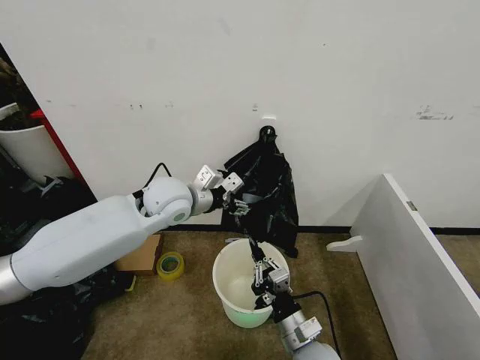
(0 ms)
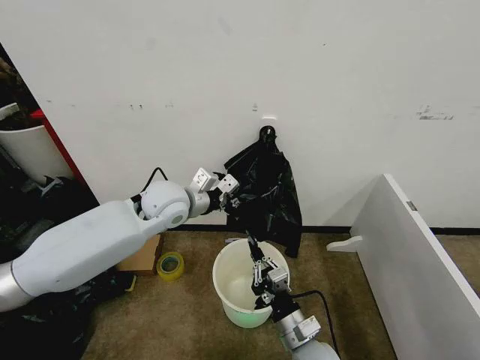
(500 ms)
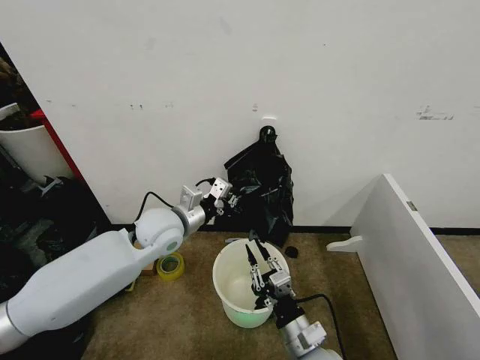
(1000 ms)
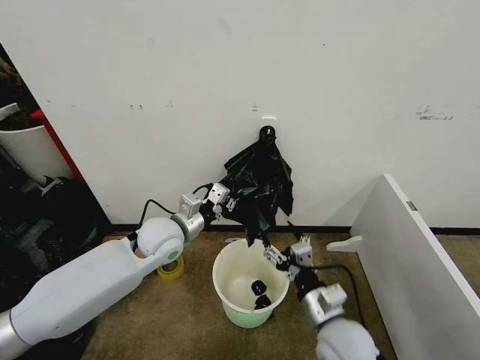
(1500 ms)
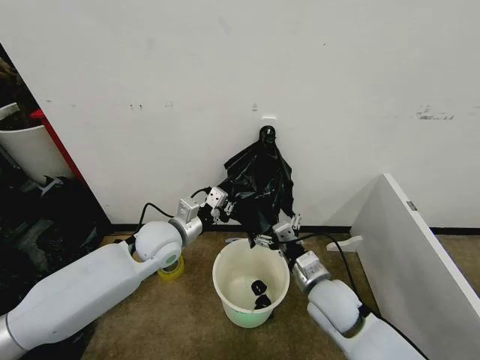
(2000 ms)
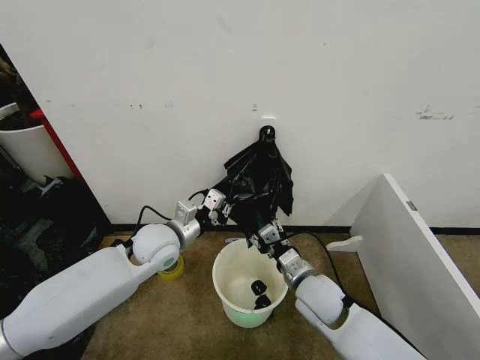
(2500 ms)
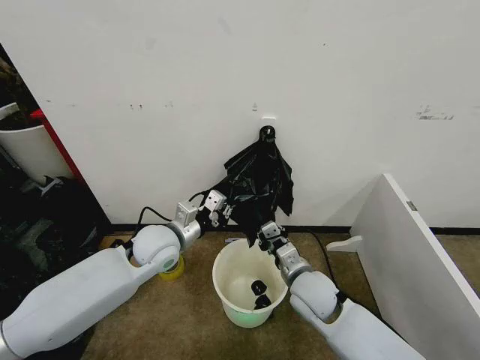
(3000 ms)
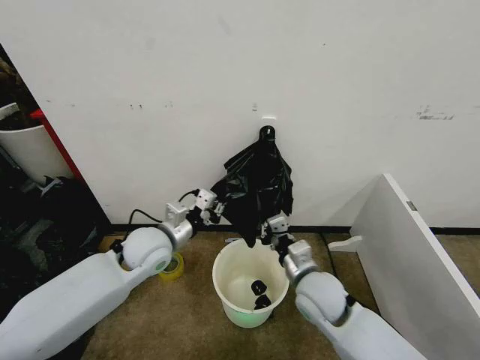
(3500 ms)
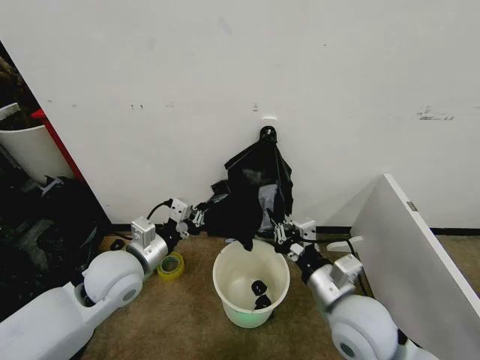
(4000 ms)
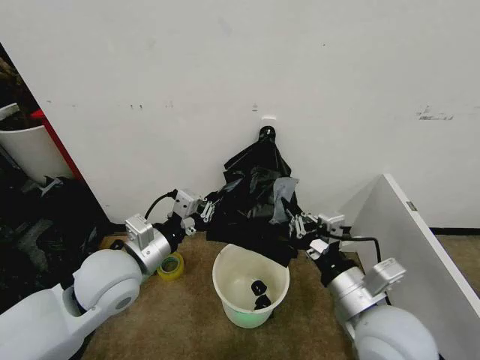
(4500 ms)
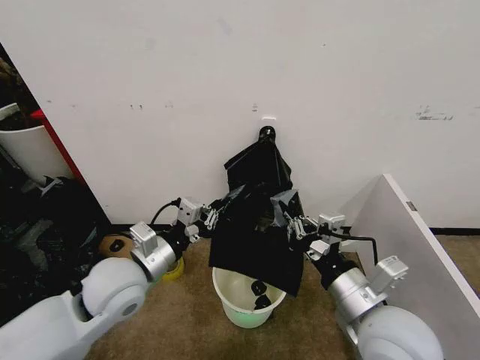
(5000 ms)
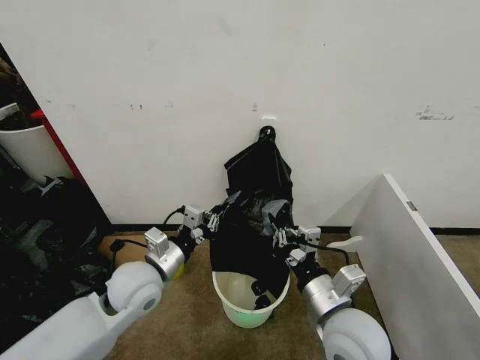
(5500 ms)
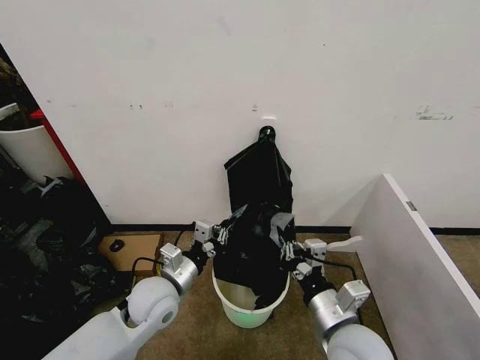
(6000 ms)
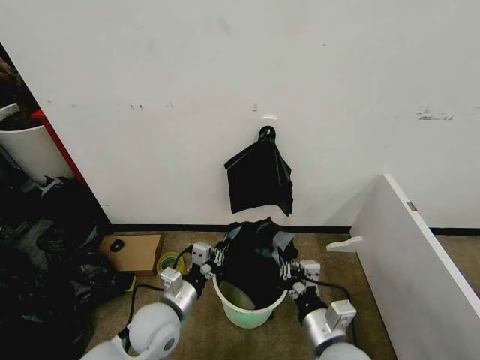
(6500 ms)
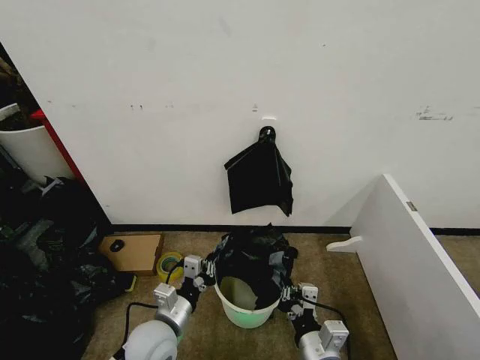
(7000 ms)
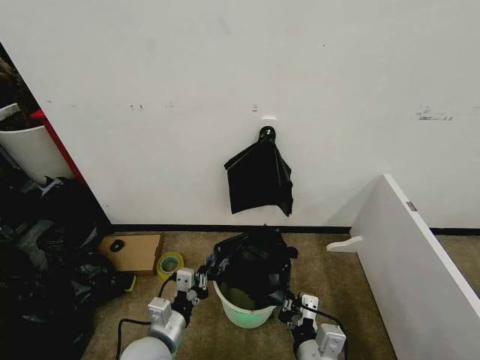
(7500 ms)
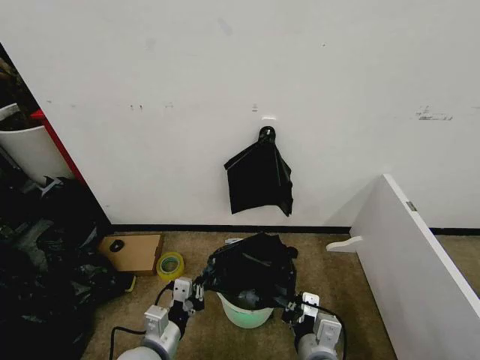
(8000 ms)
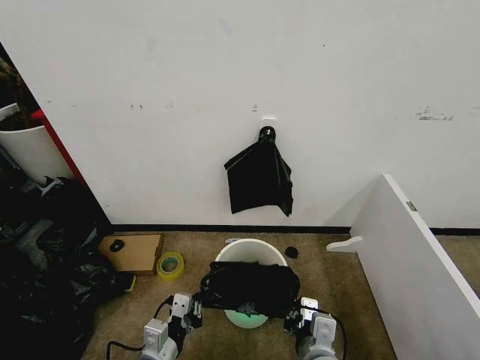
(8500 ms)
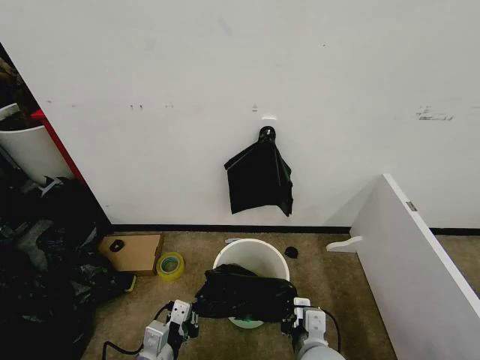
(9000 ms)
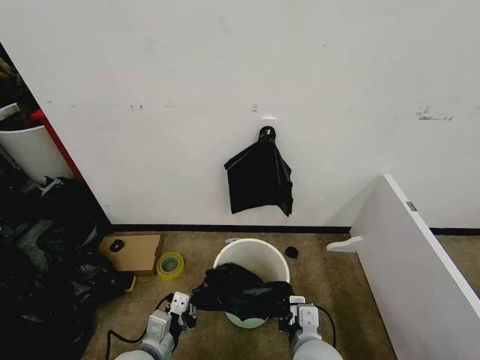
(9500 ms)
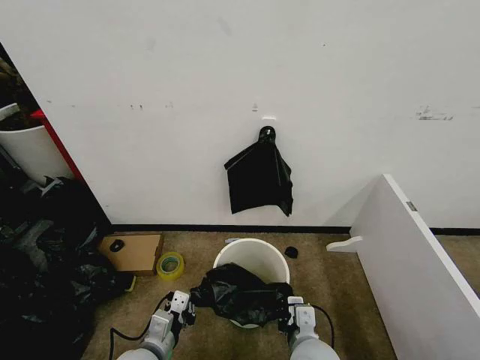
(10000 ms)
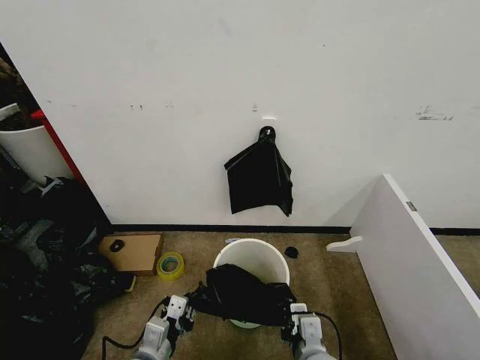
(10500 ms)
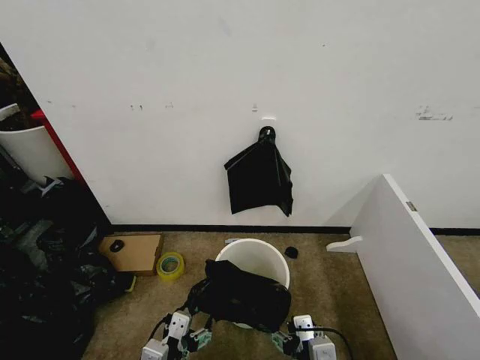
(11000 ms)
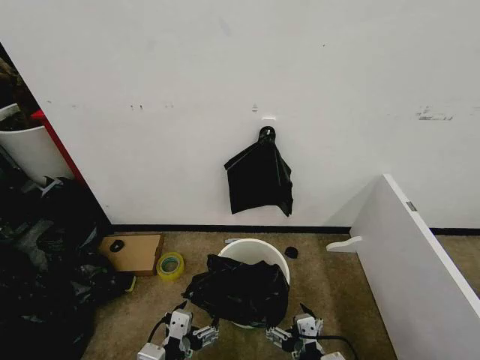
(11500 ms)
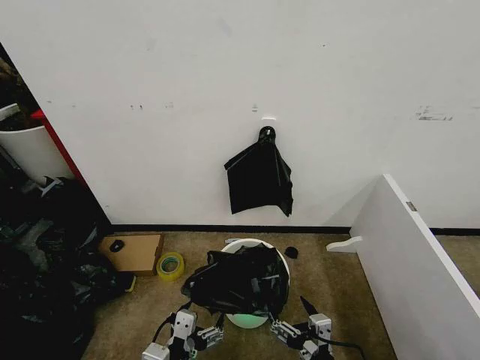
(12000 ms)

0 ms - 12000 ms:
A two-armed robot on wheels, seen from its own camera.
Task of the whole recording: Place the garbage bag over the trash bin.
0 ms - 2000 ms: The left gripper is displaced downward by roughly 10 cm, and closes up. The right gripper is displaced forward and upward by about 10 cm, and opens its fingers.
2000 ms - 4000 ms: The right gripper moves upward and backward, approximately 10 cm, and closes, while the left gripper shifts about 10 cm backward and to the left.
4000 ms - 6000 ms: The left gripper goes approximately 10 cm downward and to the right.
6000 ms - 8000 ms: The right gripper heads downward, covering some 5 cm. The left gripper shifts some 10 cm backward and downward.
8000 ms - 10000 ms: The right gripper moves about 5 cm.
10000 ms - 12000 ms: The left gripper heads backward and upward, covering some 10 cm, and opens its fingers, while the right gripper shifts roughly 15 cm backward and to the right, and opens its fingers.

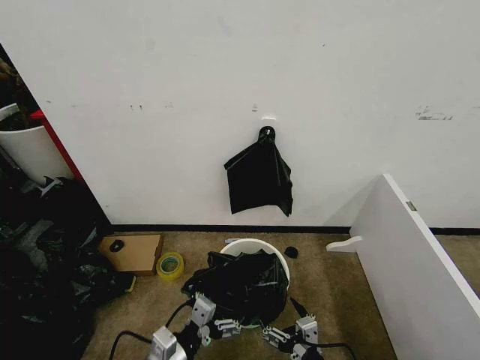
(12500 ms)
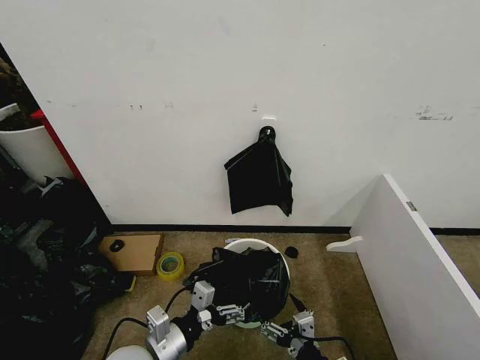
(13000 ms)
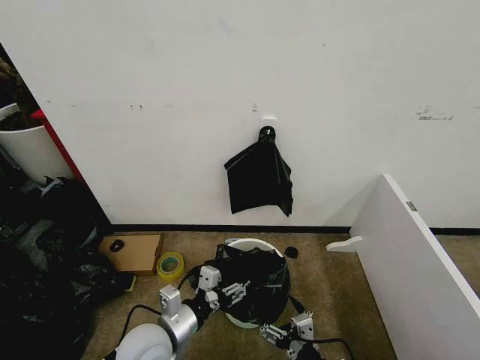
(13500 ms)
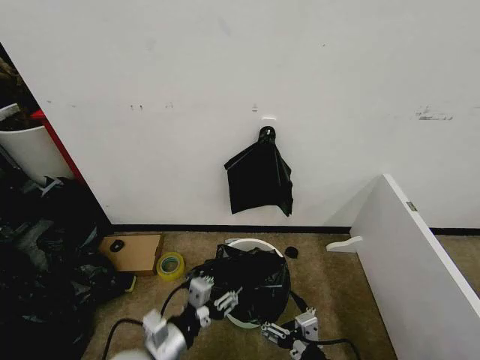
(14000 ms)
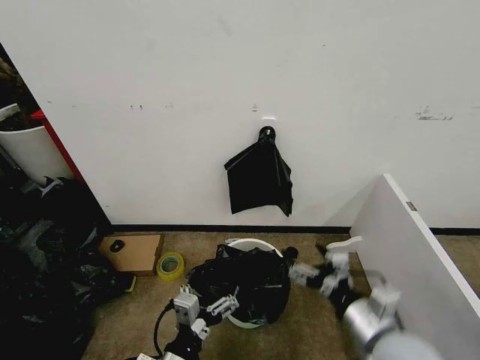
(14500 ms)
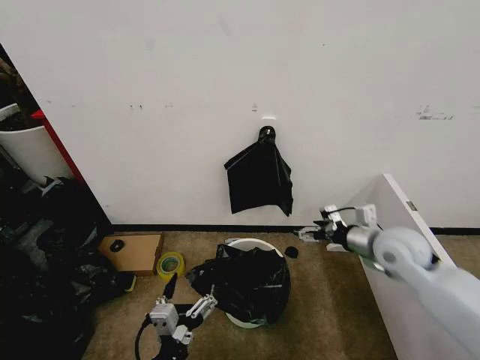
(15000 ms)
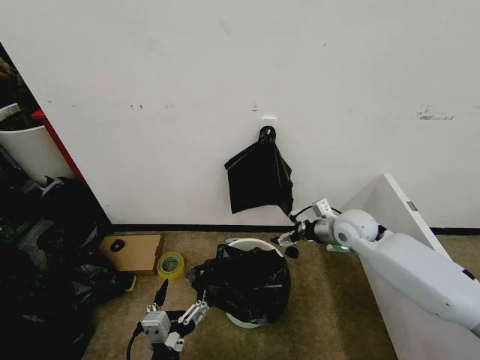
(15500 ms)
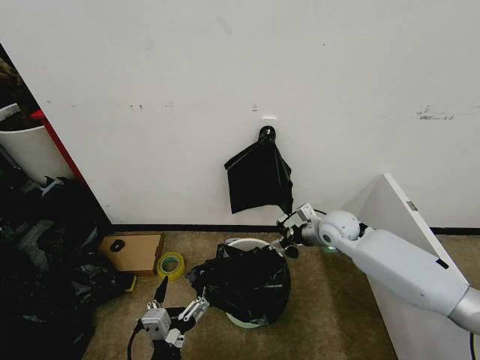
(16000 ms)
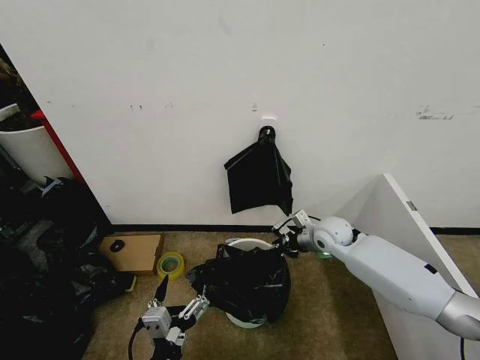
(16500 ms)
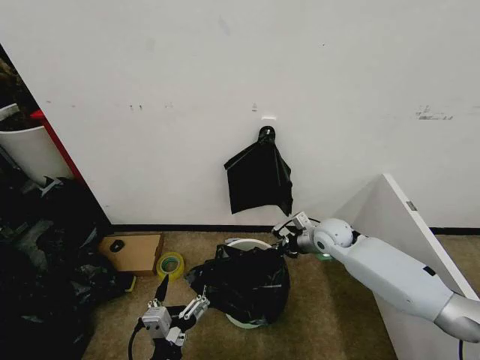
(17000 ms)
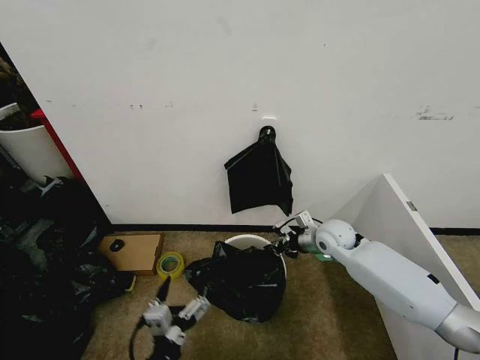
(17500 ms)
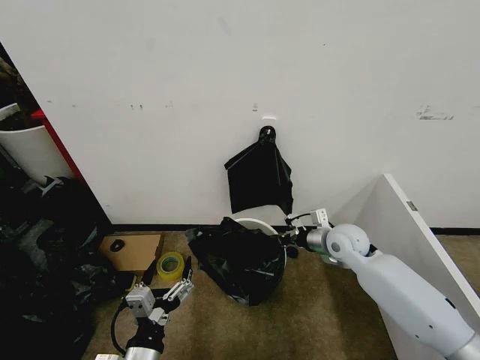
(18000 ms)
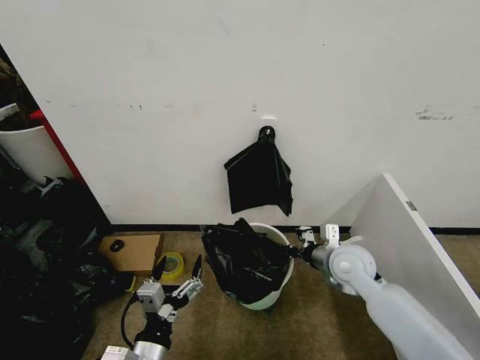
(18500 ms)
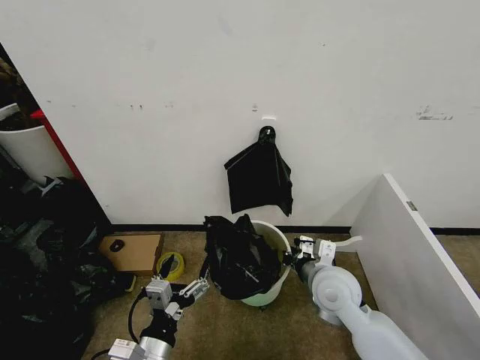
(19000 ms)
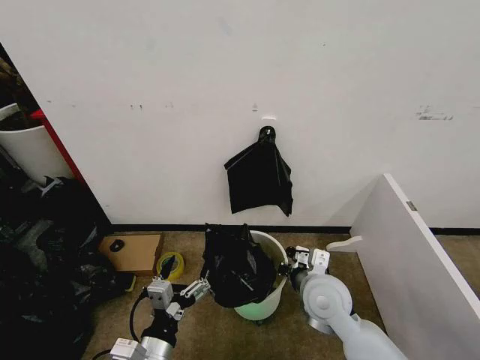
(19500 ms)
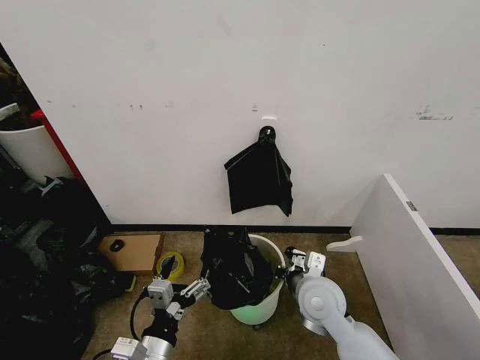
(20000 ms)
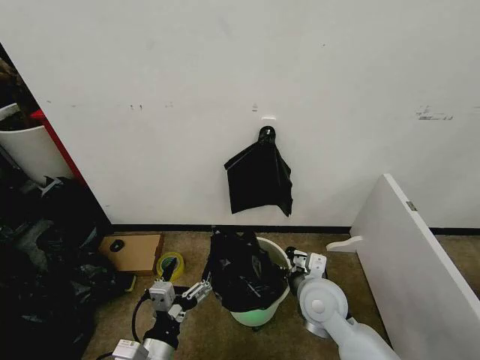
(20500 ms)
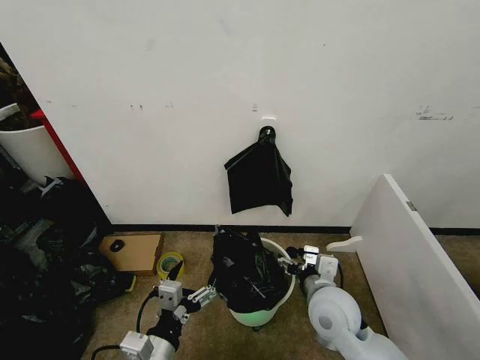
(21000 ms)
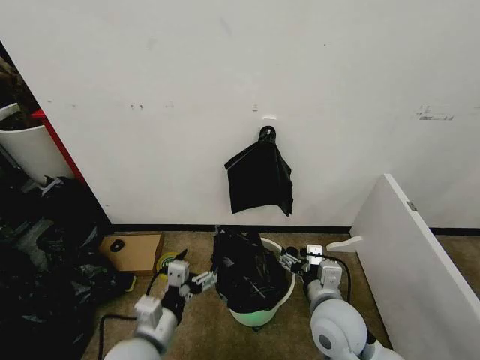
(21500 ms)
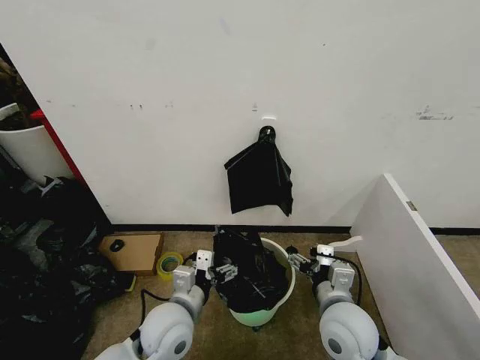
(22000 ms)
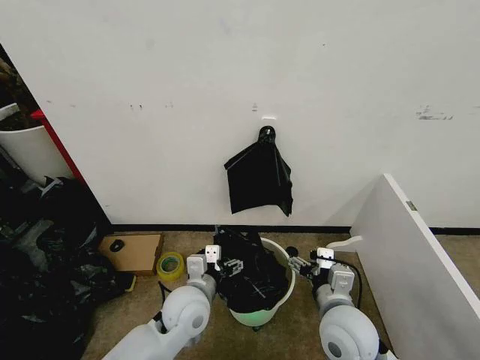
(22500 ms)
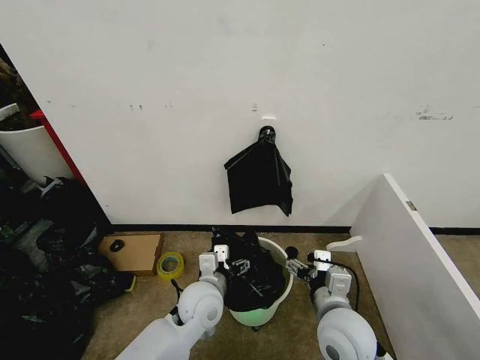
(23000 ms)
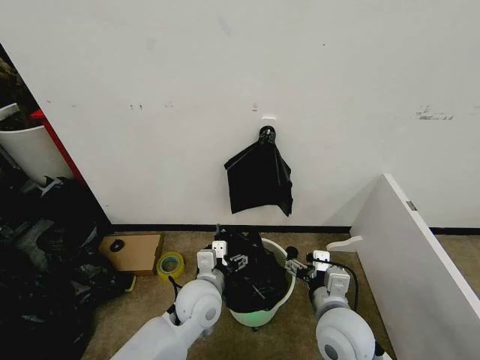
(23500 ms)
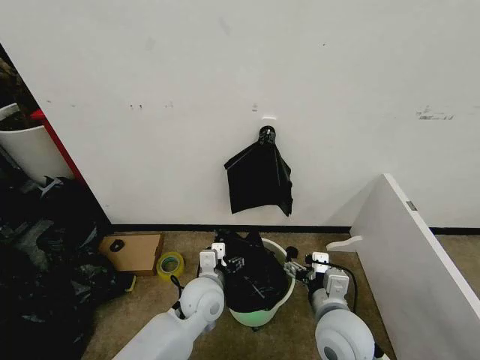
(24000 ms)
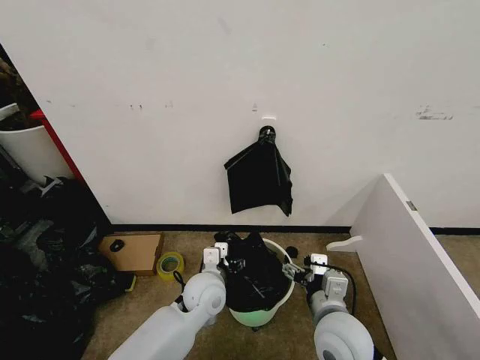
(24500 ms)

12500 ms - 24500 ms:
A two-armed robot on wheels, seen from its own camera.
Task of the whole recording: Place the garbage bag over the trash bin.
12500 ms - 14500 ms: The left gripper shifts by approximately 5 cm, and closes, then reopens, while the right gripper shifts some 15 cm upward, forward and to the right.
14500 ms - 16500 ms: The right gripper is displaced forward by about 30 cm.
16500 ms - 18500 ms: The right gripper shifts roughly 10 cm backward, and closes up; the left gripper ends up some 5 cm from where it was.
18500 ms - 20500 ms: The right gripper heads to the left and backward, covering some 10 cm, and opens its fingers.
20500 ms - 22500 ms: The left gripper moves forward, about 15 cm. The right gripper moves backward, some 5 cm, and opens.
22500 ms - 24500 ms: The left gripper moves approximately 5 cm.

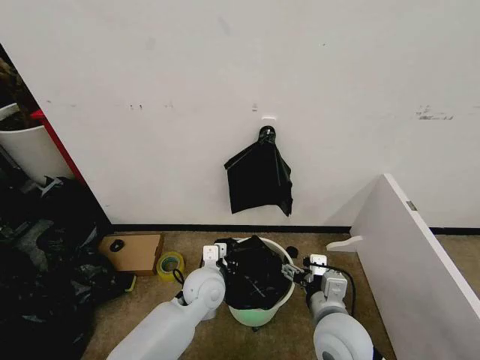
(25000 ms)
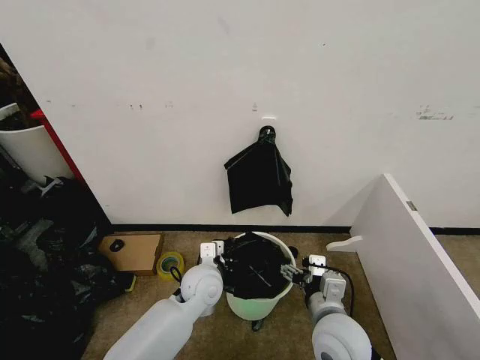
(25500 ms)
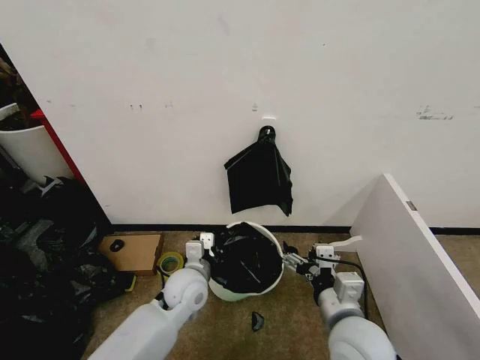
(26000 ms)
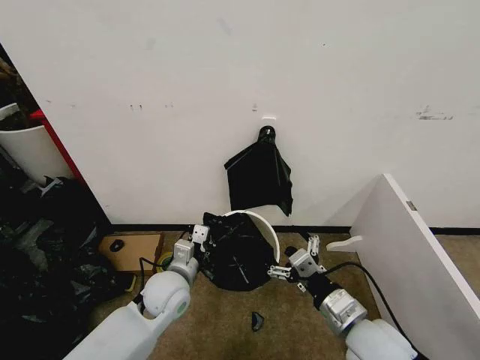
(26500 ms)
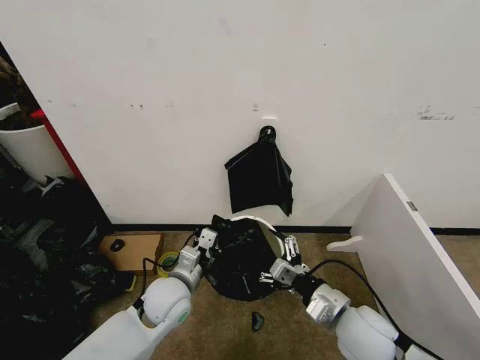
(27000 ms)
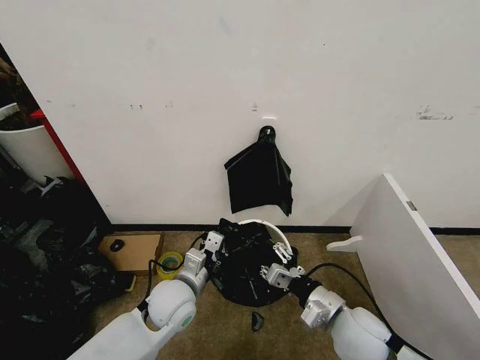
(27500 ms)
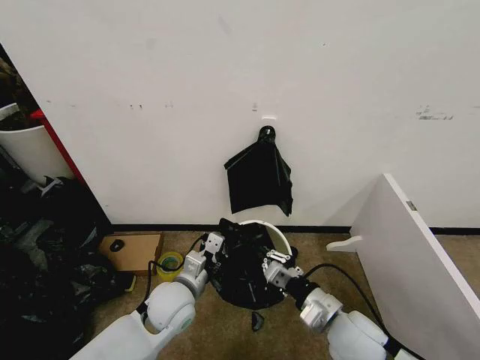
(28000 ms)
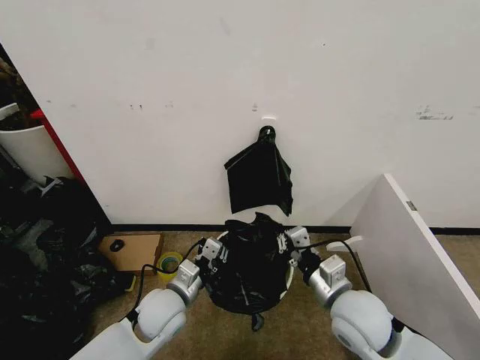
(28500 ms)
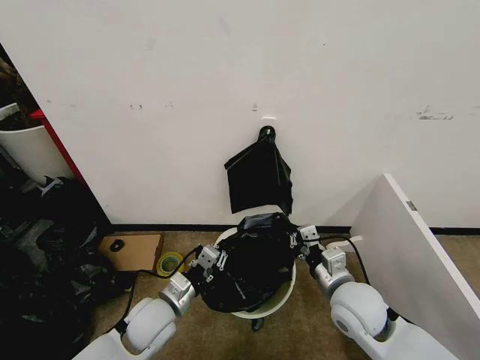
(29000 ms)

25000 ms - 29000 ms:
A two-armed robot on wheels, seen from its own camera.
Task of the whole recording: Place the garbage bag over the trash bin.
25000 ms - 27000 ms: The left gripper travels to the left by about 5 cm, and closes.
27000 ms - 29000 ms: The right gripper closes its fingers.
